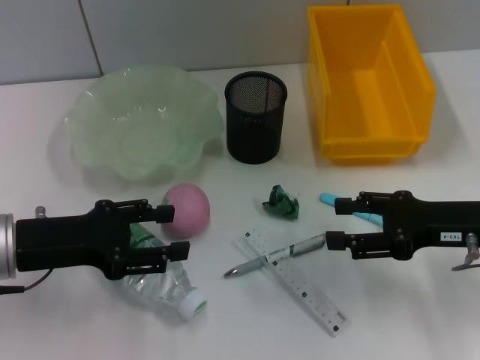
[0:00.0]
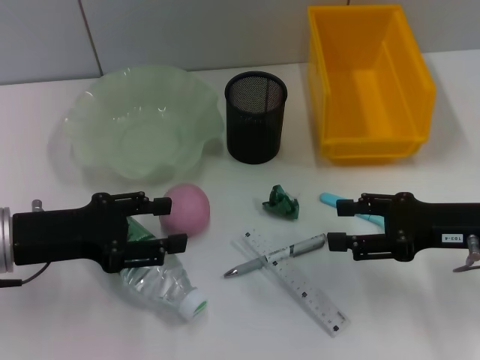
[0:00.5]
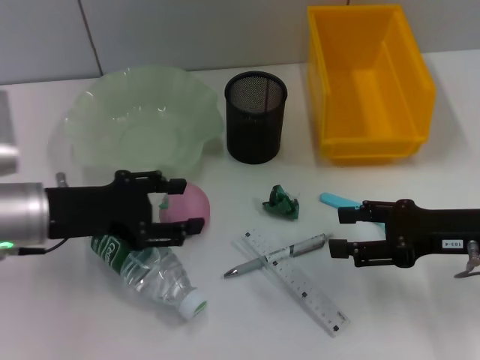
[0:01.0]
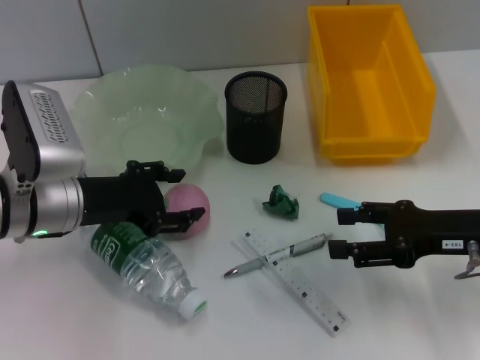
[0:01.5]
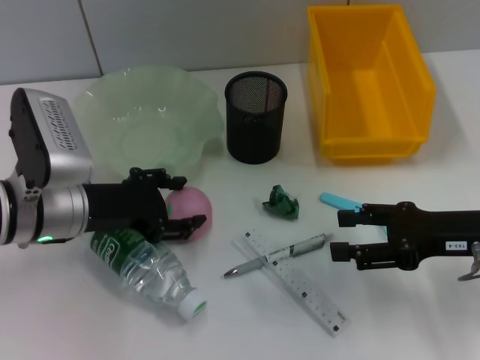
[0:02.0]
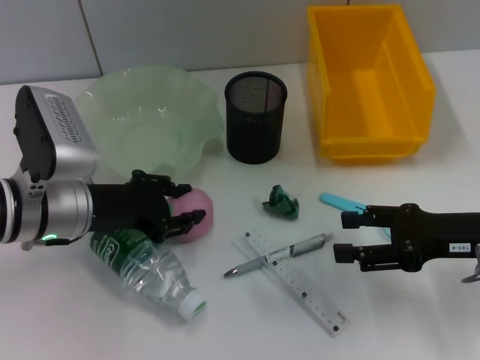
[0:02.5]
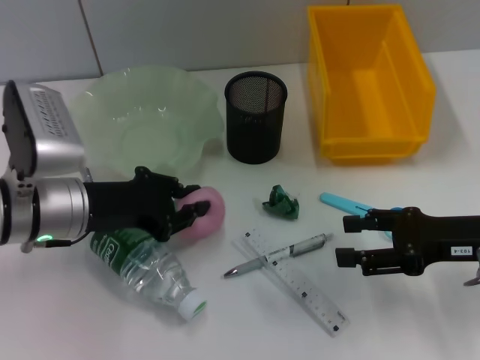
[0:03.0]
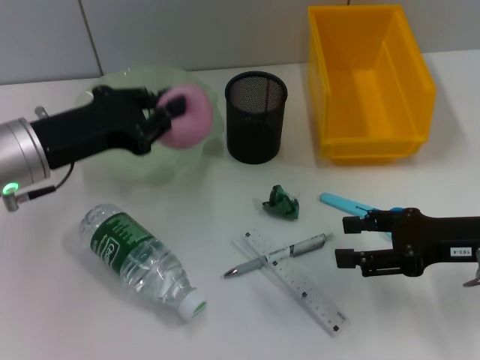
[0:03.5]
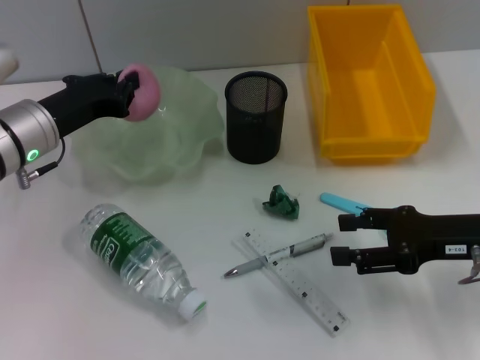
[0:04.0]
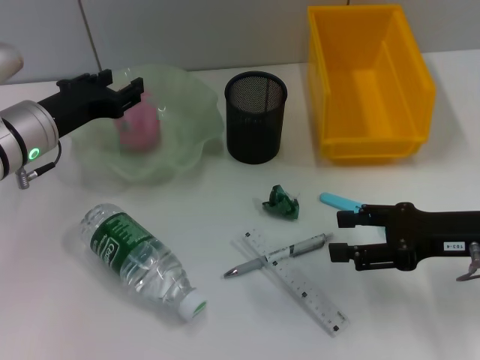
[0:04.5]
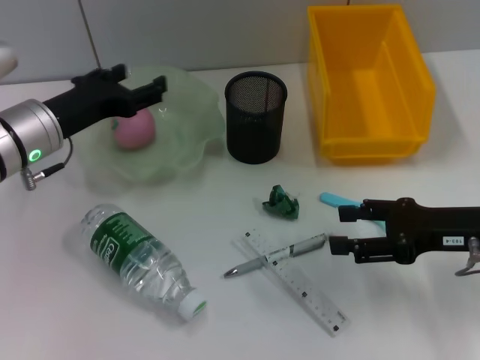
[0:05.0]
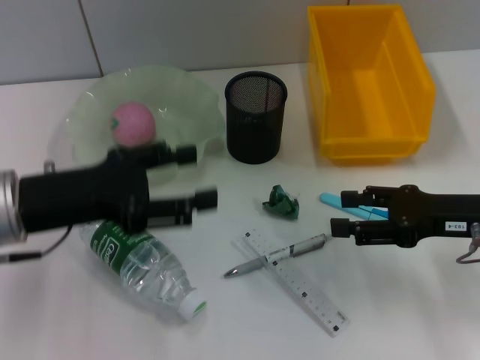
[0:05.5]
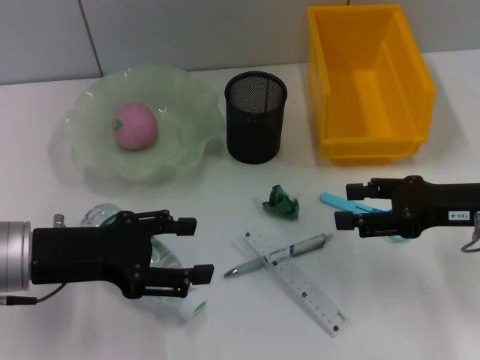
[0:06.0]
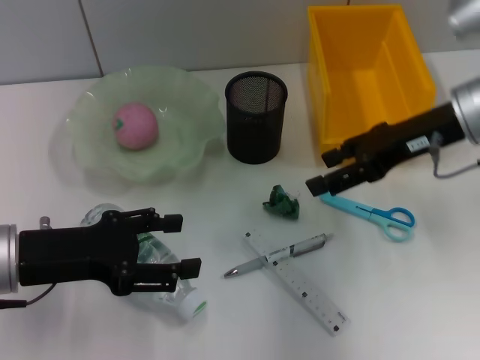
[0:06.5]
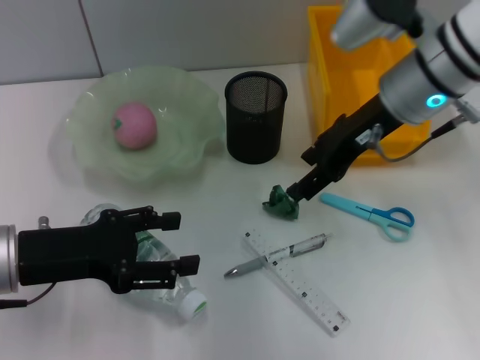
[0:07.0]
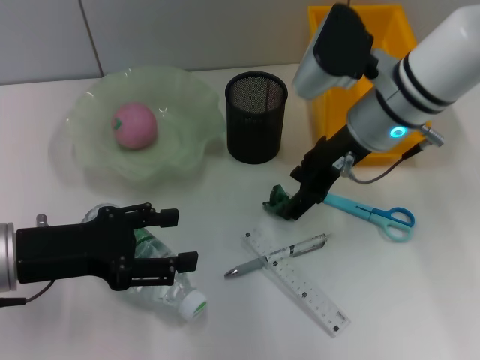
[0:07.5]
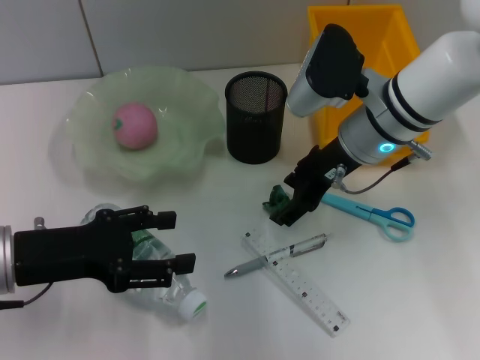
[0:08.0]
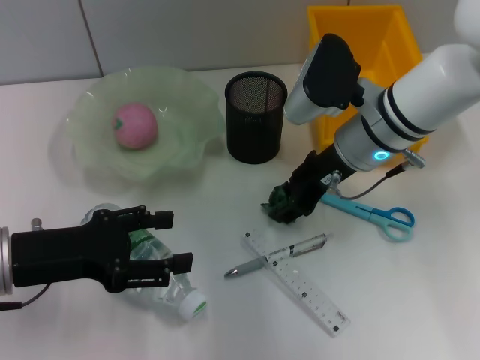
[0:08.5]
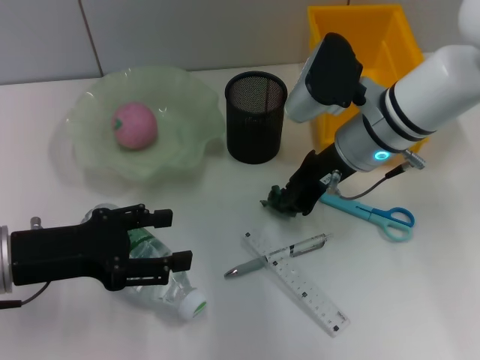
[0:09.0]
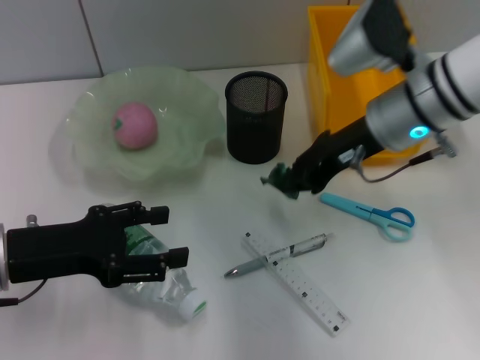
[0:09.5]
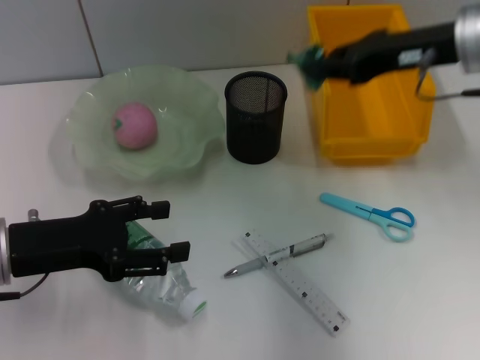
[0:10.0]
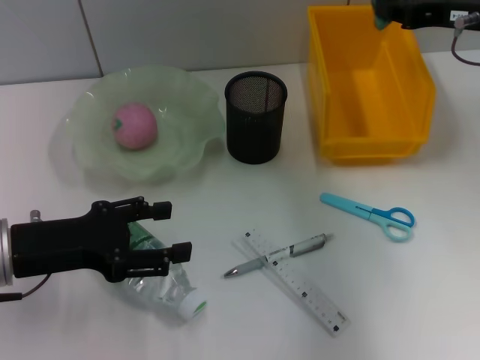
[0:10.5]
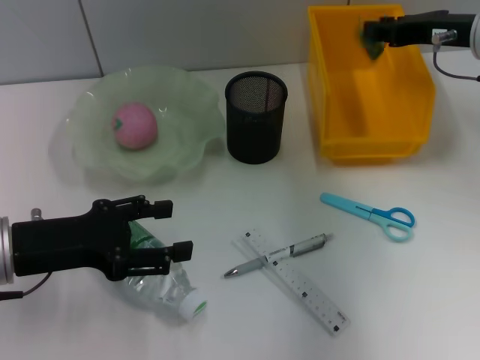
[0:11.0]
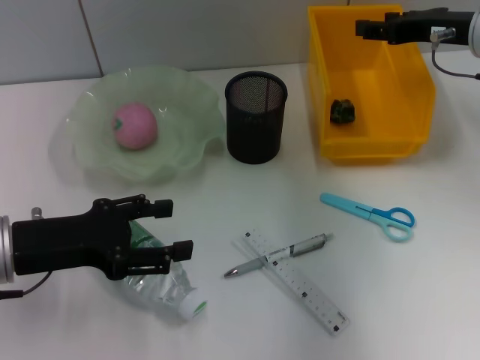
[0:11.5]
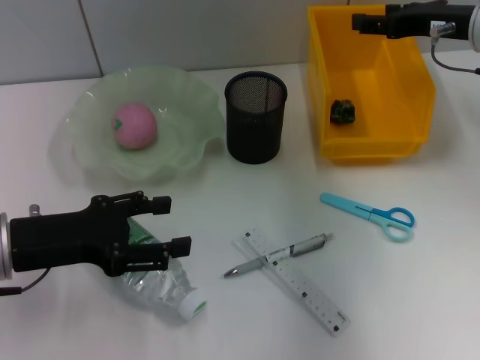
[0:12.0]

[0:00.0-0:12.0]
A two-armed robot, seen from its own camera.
Step, 0:00.0 to 0:02.5: Grab the peach with the left hand.
Step, 0:03.0 to 0:04.5: Place the peach into the fruit bowl with the left hand.
Step, 0:05.0 to 0:08.5: Grab the plastic with the right hand.
Step, 0:09.0 to 0:11.0: Place the plastic into the trash can with the right hand.
0:00.0 to 0:02.0: The left gripper moves to the right, some 5 cm.
0:02.0 to 0:04.0: The left gripper goes roughly 5 cm forward, and closes up.
0:04.0 to 0:06.0: The left gripper travels backward by roughly 10 cm, and opens.
0:06.0 to 0:08.0: The right gripper shifts about 20 cm to the left and forward.
0:08.0 to 0:10.0: The right gripper shifts approximately 15 cm to the right and upward, and closes.
0:10.0 to 0:12.0: The right gripper changes place by about 5 cm, and opens its fingers.

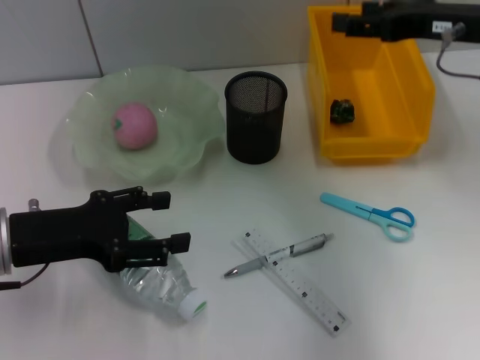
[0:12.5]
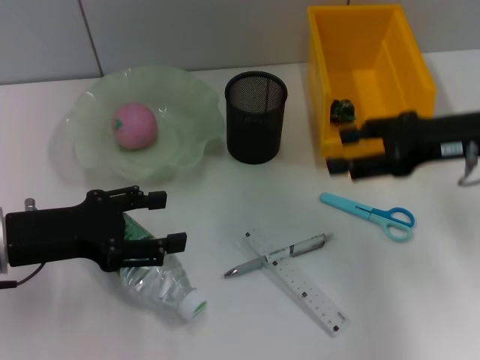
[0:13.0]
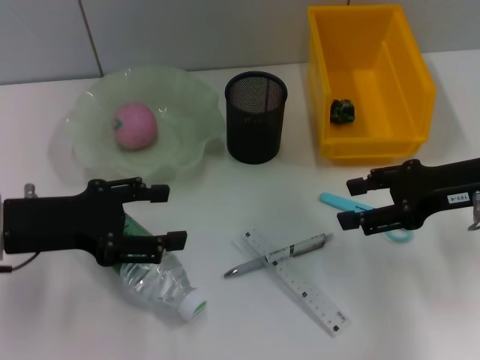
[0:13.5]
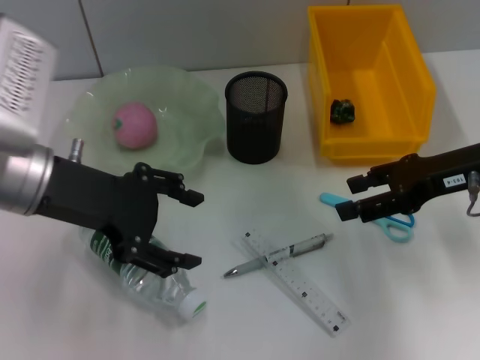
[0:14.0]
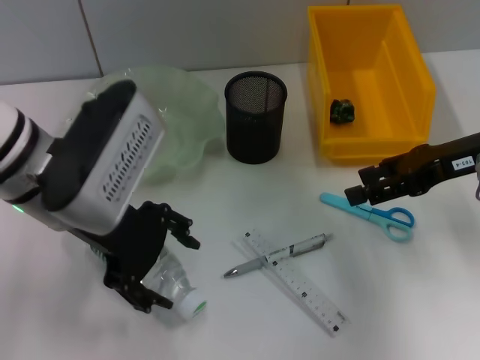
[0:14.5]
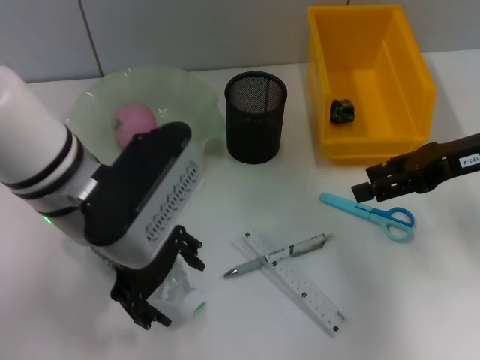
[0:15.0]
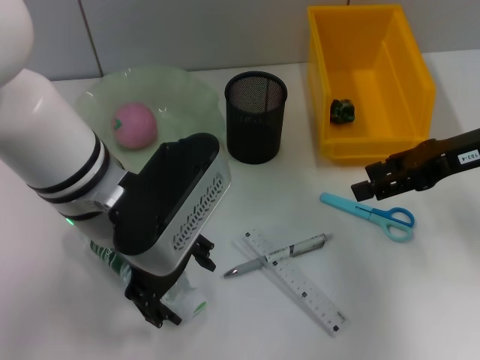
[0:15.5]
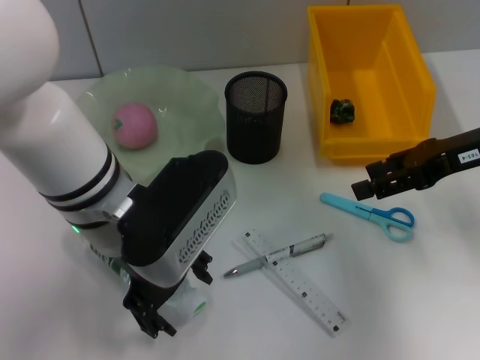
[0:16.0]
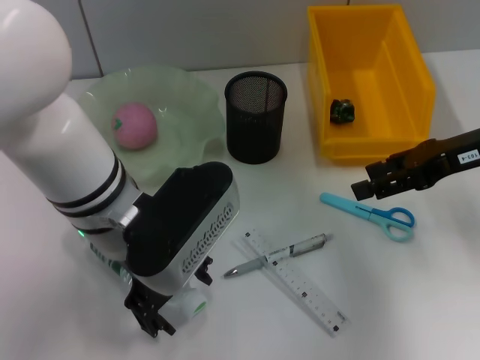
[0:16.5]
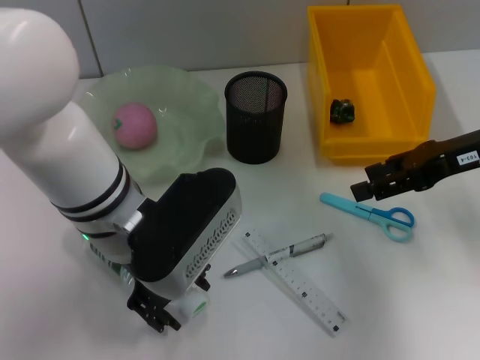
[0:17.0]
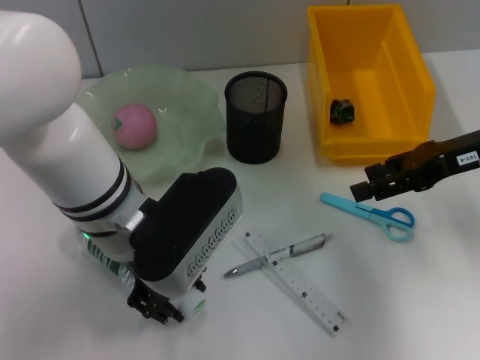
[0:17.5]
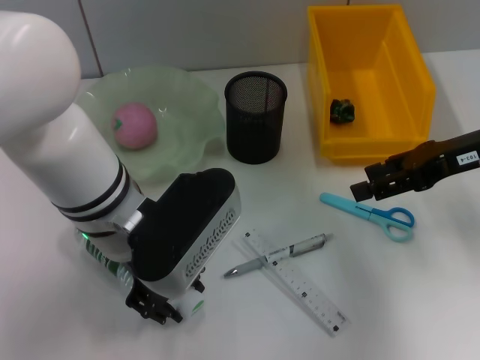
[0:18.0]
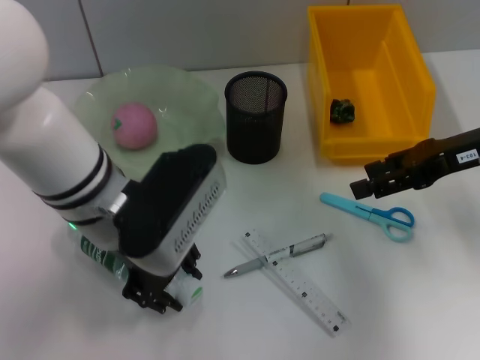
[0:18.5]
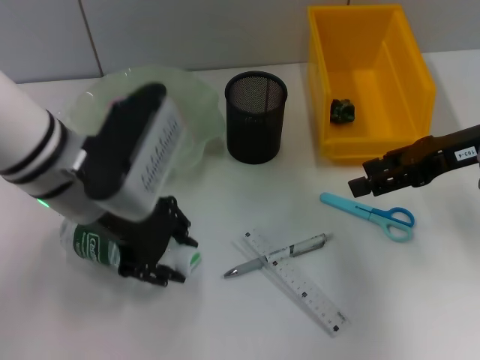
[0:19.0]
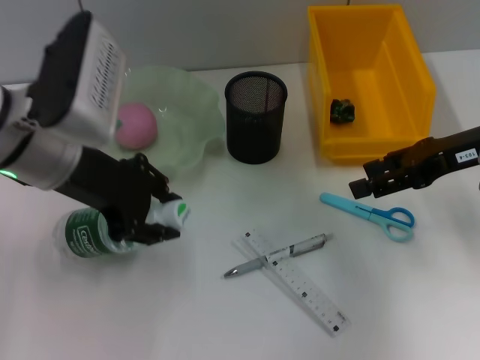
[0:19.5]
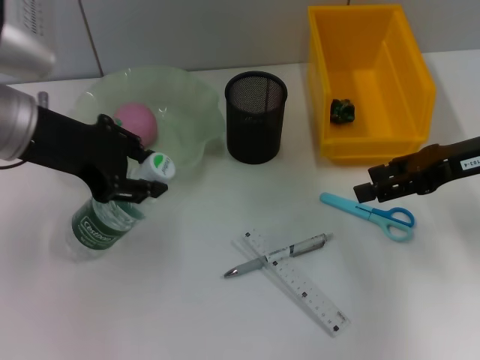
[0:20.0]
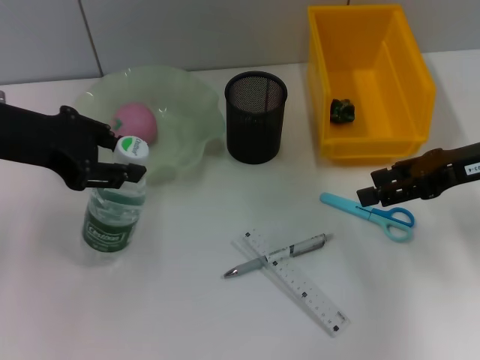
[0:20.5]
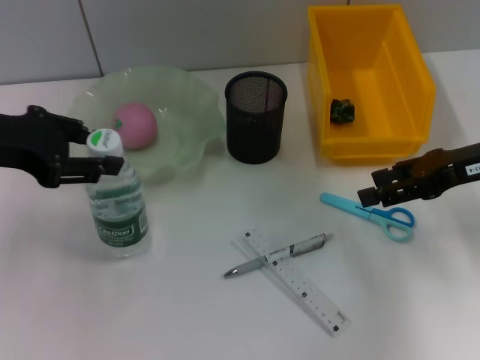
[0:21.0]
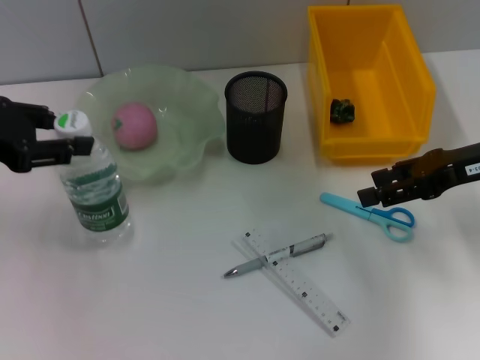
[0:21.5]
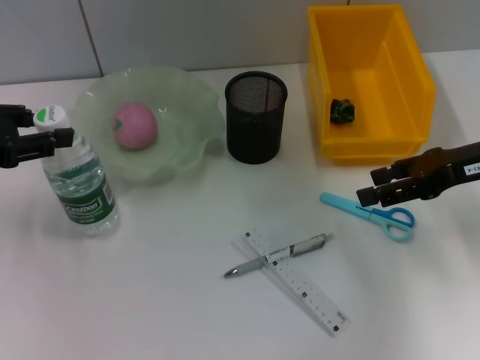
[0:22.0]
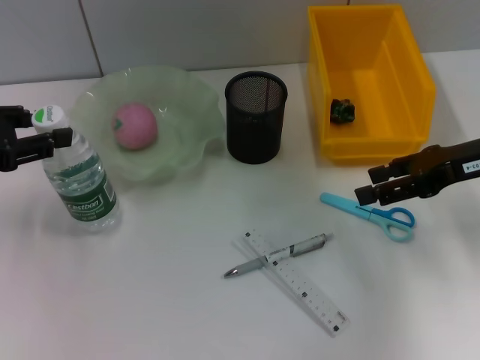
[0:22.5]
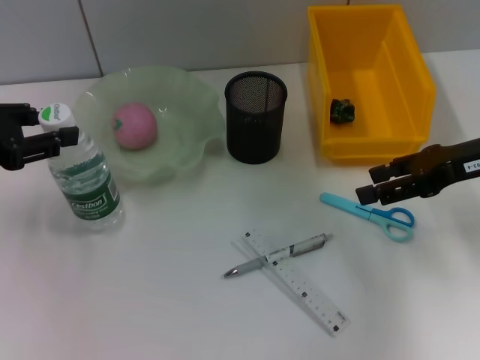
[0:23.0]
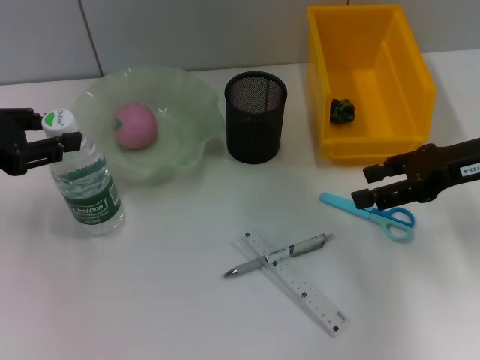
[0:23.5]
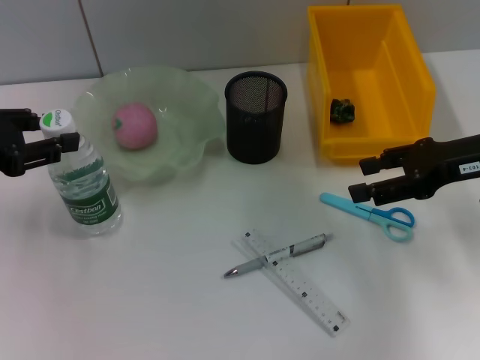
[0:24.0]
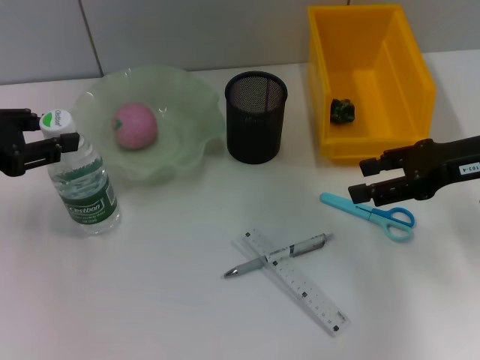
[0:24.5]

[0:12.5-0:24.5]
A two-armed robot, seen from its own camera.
Step, 0:12.5 to 0:18.0: Grab the water bottle with the left hand.
0:12.5 to 0:14.5: The left gripper goes some 10 cm to the right and upward. The right gripper goes about 5 cm downward.
0:14.5 to 0:16.5: The left gripper heads to the right, covering approximately 5 cm.
0:16.5 to 0:18.5: The left gripper closes up.
0:18.5 to 0:20.5: The left gripper goes roughly 15 cm to the left and upward.
0:20.5 to 0:22.5: The left gripper moves to the left, roughly 10 cm.
0:22.5 to 0:24.5: The grippers make only small movements.

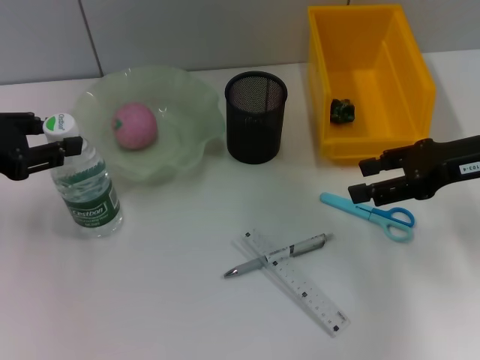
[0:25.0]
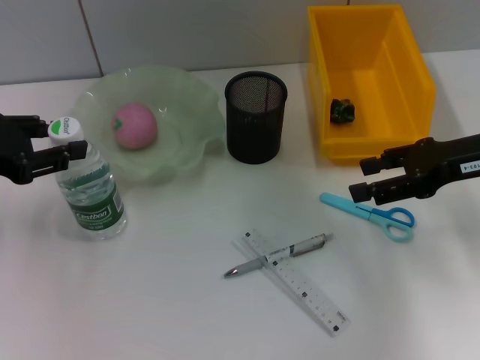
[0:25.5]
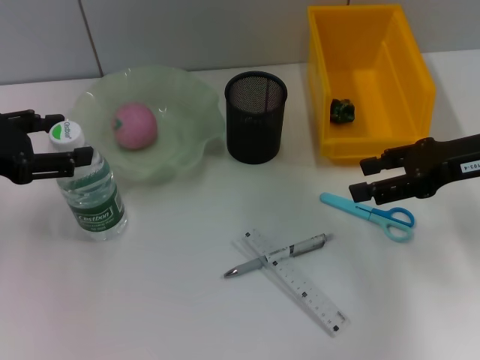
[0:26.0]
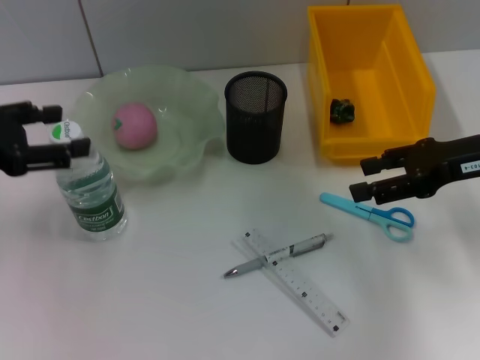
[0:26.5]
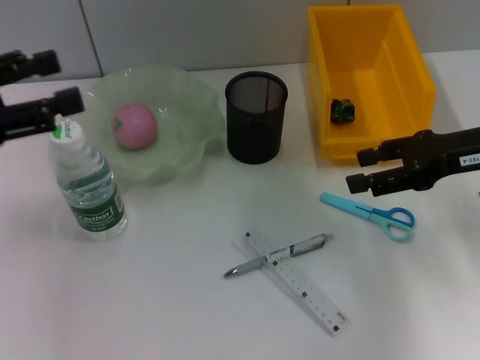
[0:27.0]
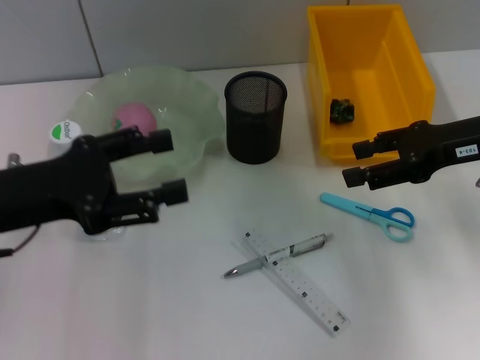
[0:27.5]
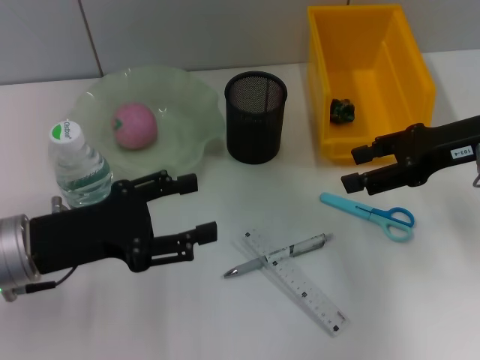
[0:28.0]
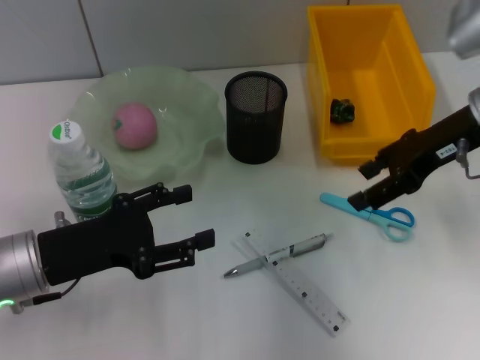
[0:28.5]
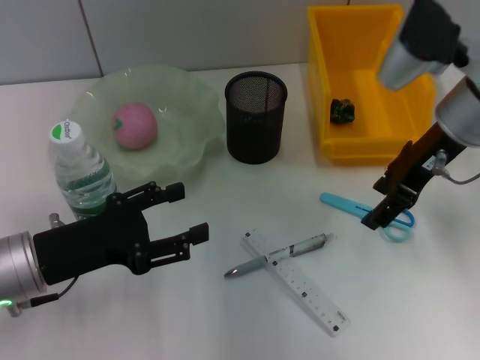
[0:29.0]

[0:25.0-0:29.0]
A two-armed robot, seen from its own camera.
0:25.0 to 0:27.0: The left gripper opens up.
0:27.0 to 0:29.0: The left gripper travels downward and to the right by approximately 15 cm; the right gripper heads to the left, covering about 10 cm.
